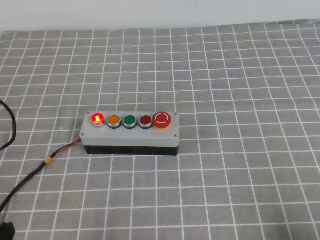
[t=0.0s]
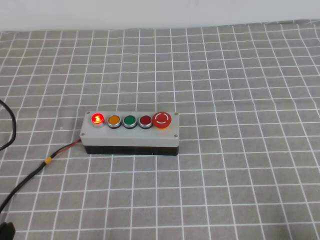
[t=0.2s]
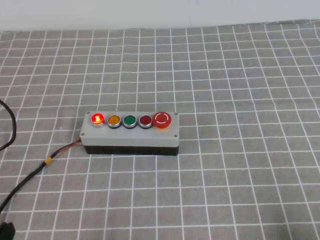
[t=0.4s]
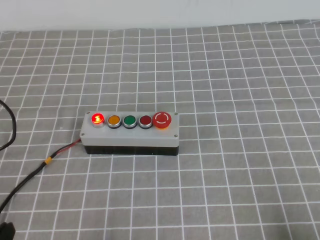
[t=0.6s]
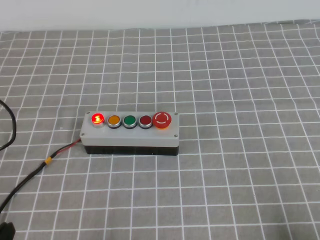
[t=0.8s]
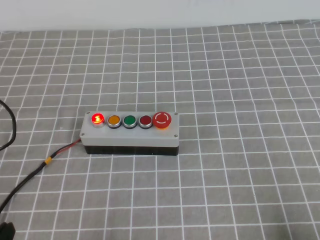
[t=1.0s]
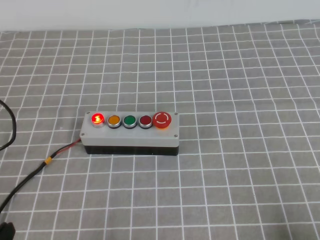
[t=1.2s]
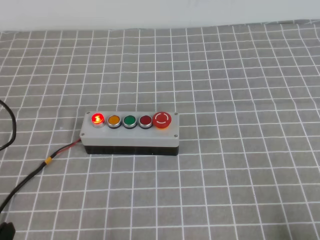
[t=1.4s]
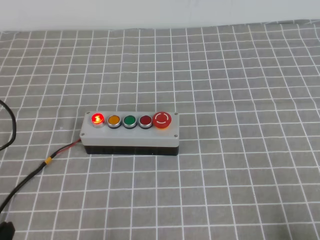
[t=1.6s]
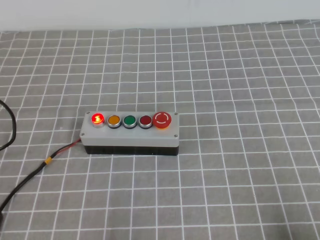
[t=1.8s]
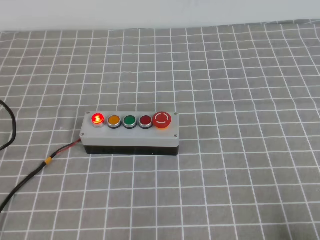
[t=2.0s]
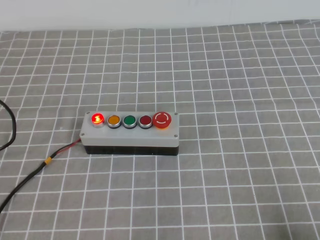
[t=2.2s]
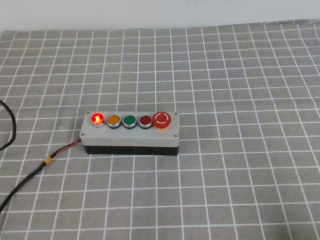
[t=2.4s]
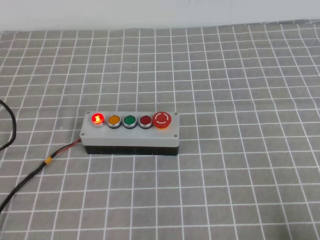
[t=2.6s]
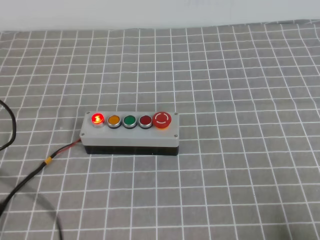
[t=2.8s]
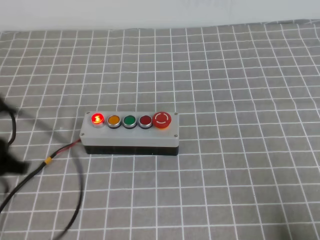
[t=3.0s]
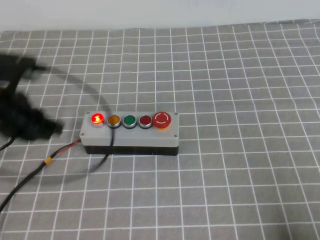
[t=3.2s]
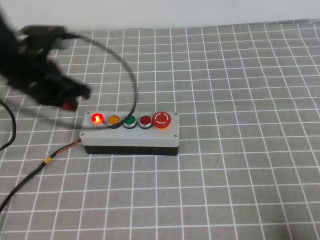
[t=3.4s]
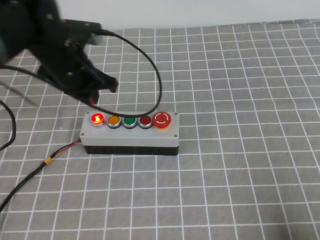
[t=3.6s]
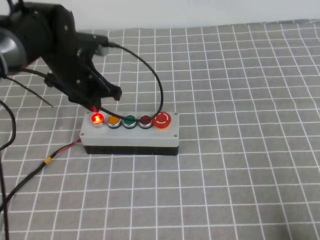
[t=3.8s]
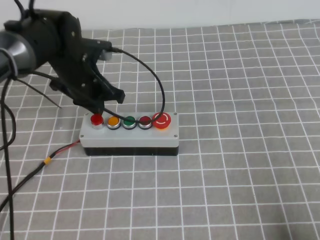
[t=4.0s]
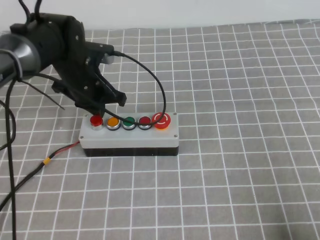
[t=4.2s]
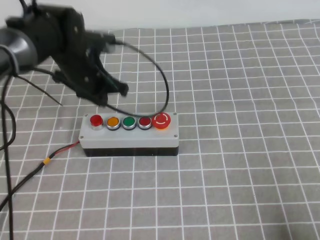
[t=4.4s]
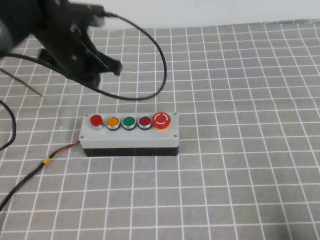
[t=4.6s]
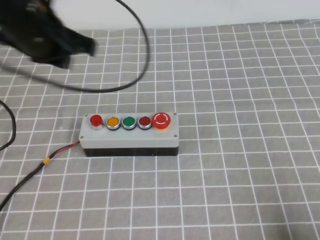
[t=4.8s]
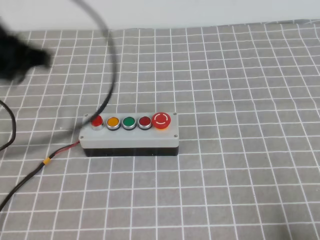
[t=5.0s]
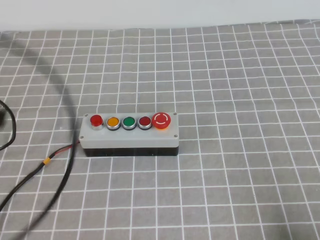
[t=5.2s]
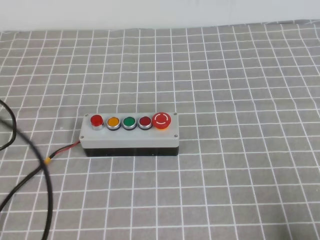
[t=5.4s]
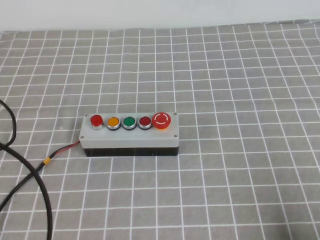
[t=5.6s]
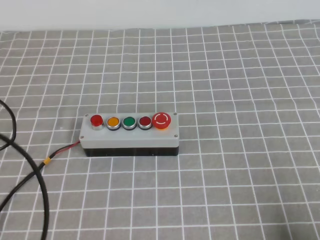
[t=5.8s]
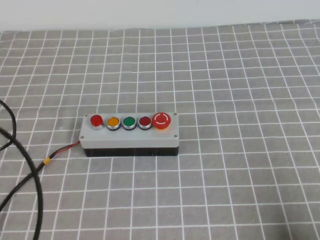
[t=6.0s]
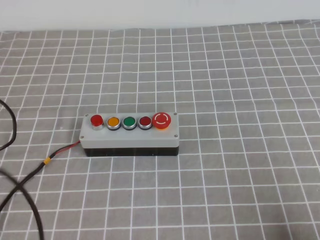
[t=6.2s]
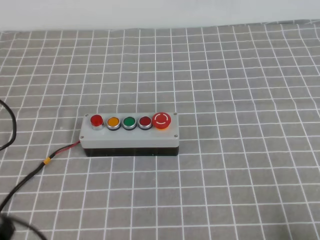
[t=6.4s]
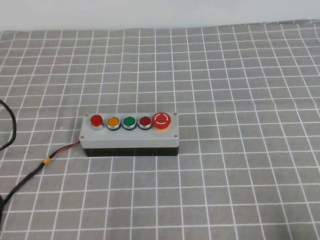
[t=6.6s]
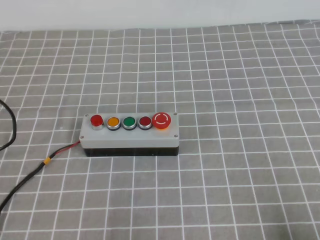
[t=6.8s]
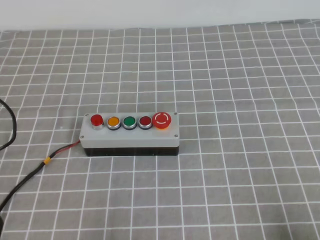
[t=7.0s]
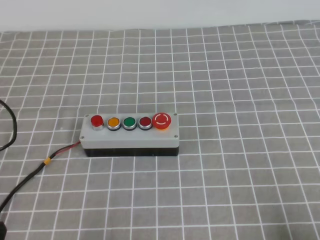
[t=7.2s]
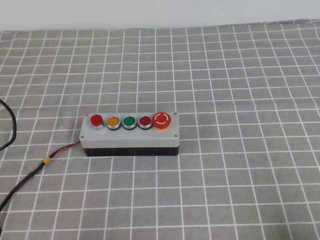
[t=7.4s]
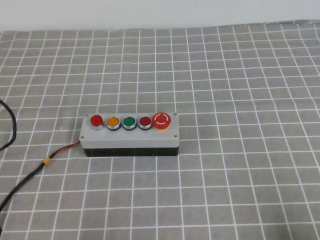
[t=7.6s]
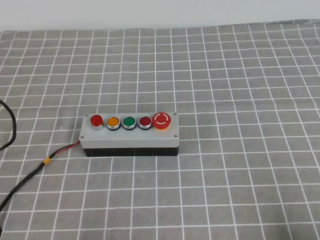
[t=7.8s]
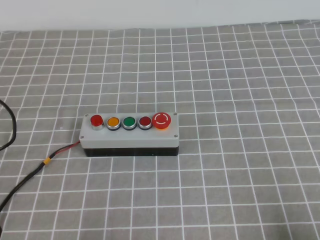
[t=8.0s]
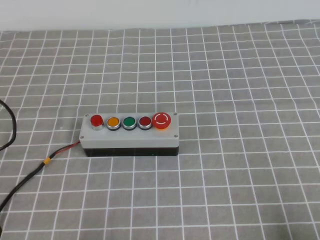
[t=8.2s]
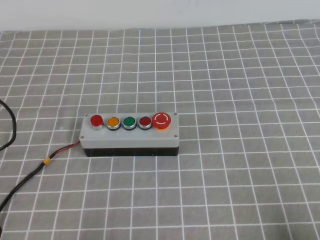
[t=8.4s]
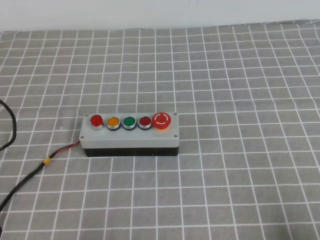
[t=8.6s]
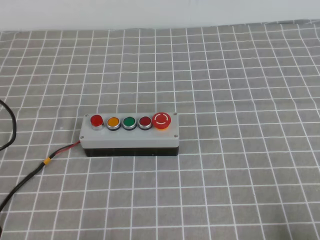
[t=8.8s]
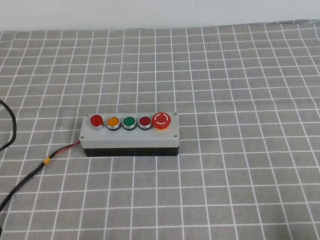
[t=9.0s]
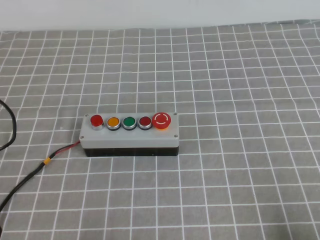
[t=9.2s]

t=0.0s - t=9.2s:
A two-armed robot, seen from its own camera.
Task of the whole recording: press the button switch on the grey tablecloth with the left gripper to turn off the button.
Step, t=0.0s - t=9.2s: Press the button to turn off.
t=0.0s - t=1.6s: The two grippers keep their place.
t=1.6s - t=3.0s: The left gripper travels forward and upward by about 20 cm.
t=3.0s - t=4.6s: The left gripper is displaced forward and to the right by approximately 20 cm.
t=4.6s - t=6.2s: The left gripper shifts about 30 cm backward and to the left.
t=6.2s - t=7.6s: The left gripper is displaced downward by about 15 cm.
t=7.6s - t=9.2s: Both grippers stay put.
